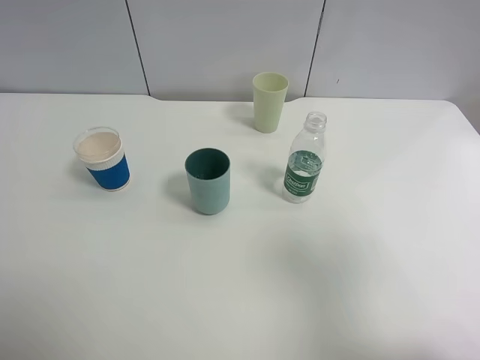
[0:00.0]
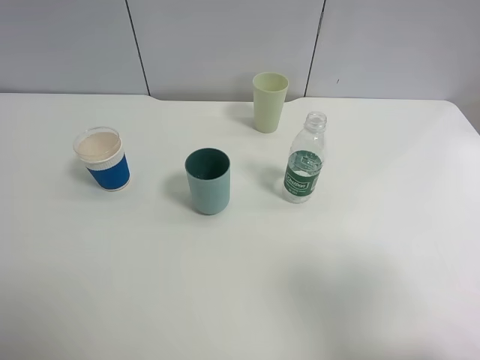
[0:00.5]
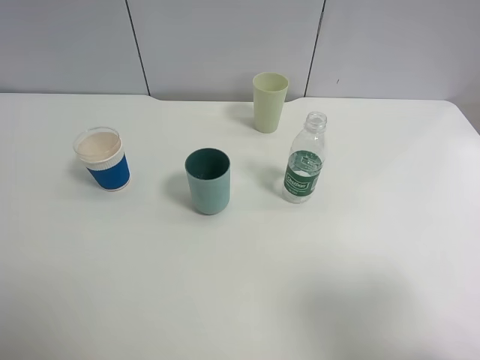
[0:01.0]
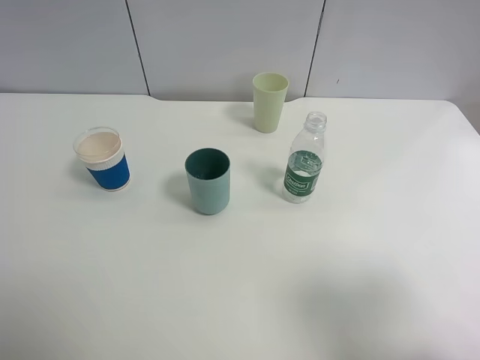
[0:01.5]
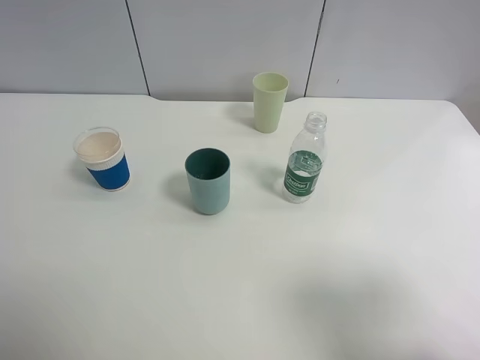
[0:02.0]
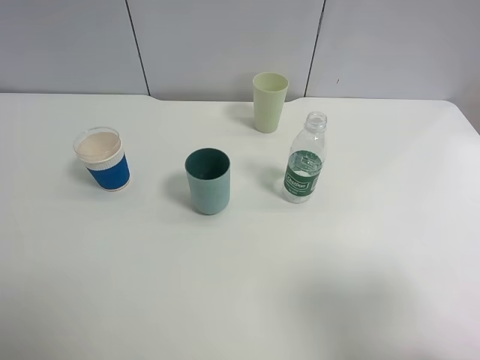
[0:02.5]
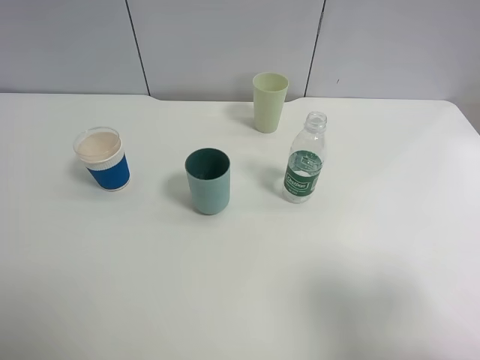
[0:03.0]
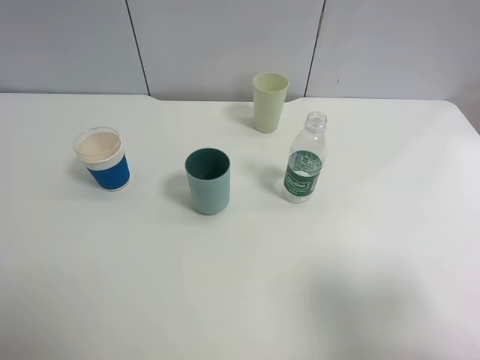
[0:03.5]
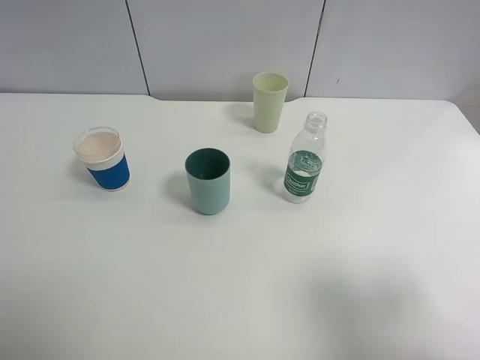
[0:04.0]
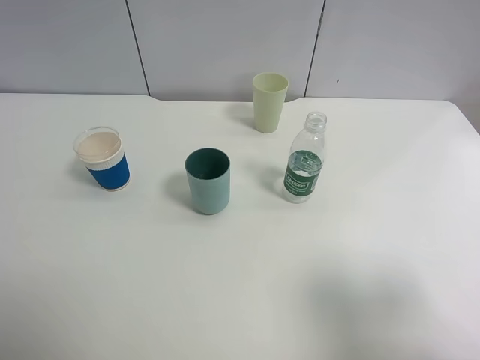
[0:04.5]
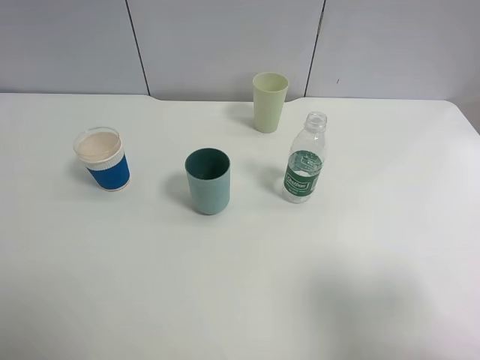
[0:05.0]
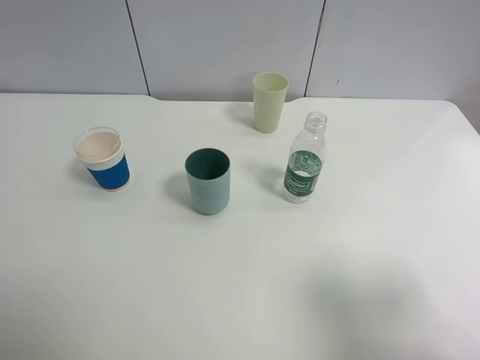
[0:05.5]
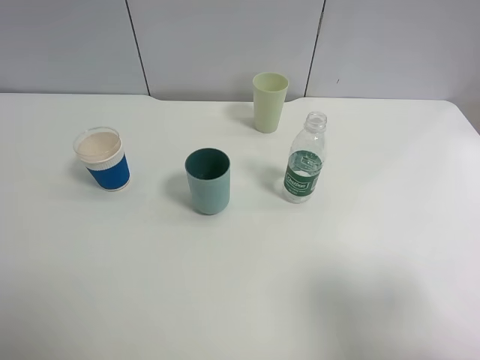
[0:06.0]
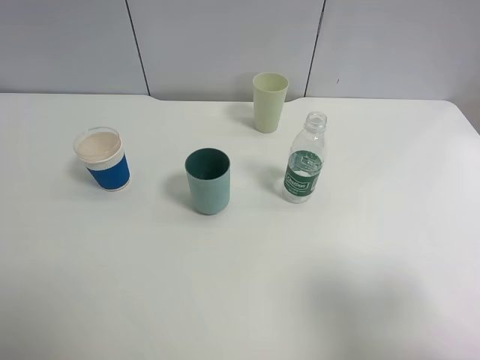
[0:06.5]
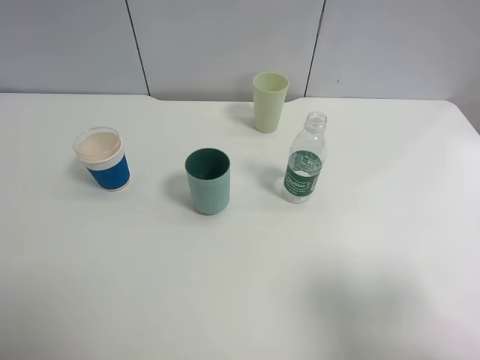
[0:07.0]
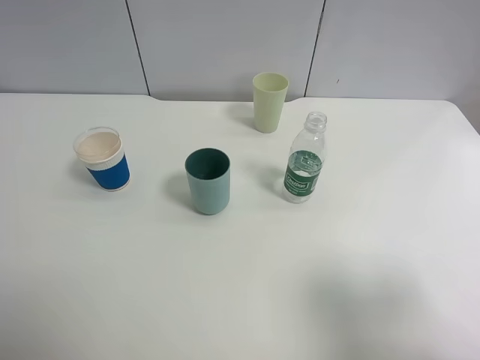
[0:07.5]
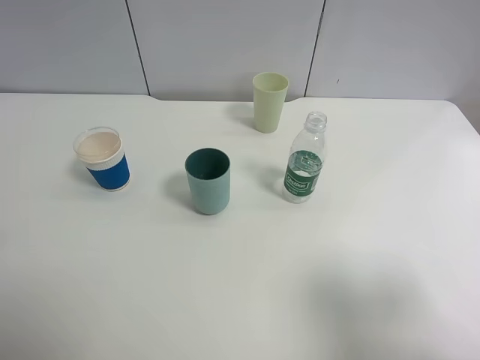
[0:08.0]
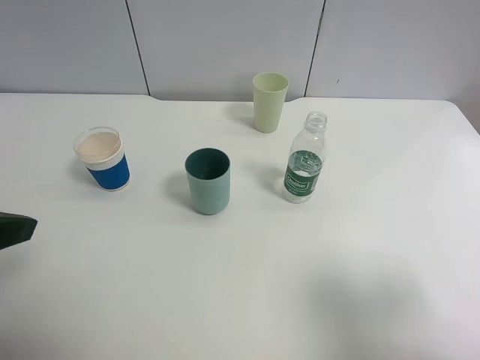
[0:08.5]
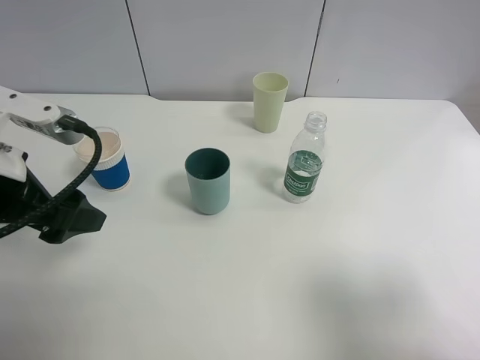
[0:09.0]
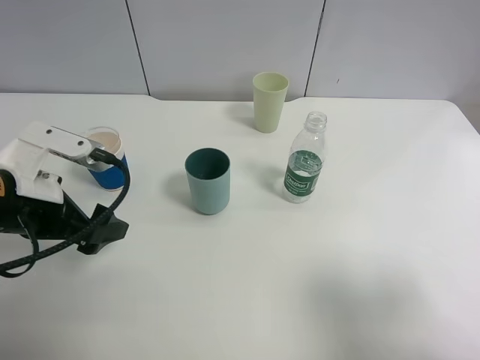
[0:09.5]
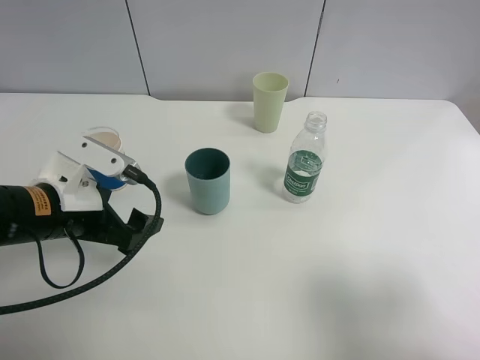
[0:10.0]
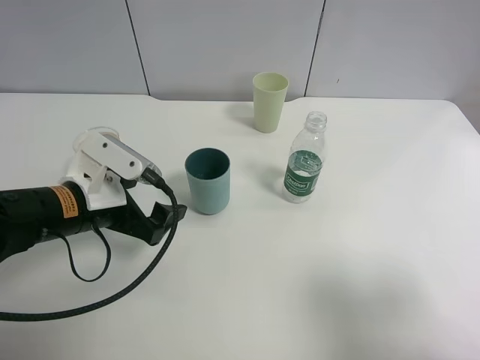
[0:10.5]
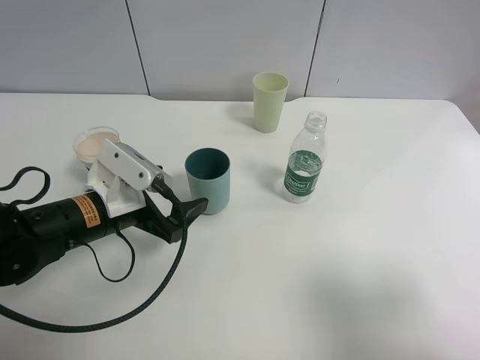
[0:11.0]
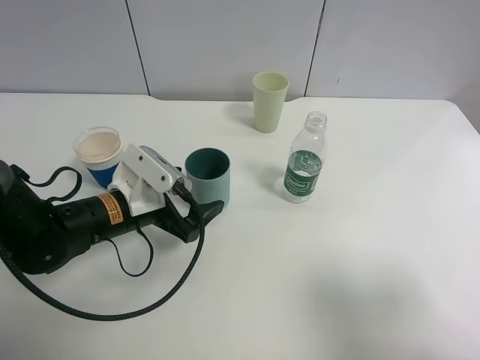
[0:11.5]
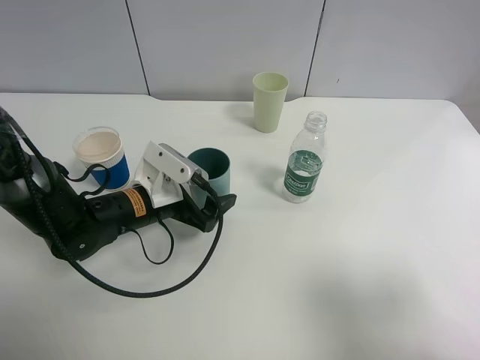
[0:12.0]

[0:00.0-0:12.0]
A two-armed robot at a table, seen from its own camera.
Task of the whole recording: use a clamp to hold the bottle of the drink, pour the beverage into a random cup, then clamp the cup containing the drink and pour the drink into another random cup.
0.0 to 2.0 s: The grippers move only a little.
4.0 to 6.0 s: Both grippers stay put.
8.0 to 10.0 s: The left gripper moves downward, forward and to the right, approximately 20 cm.
10.0 to 12.0 s: The left gripper shifts approximately 15 cm downward, forward and to the right.

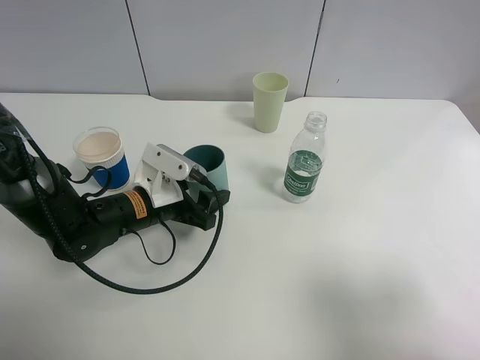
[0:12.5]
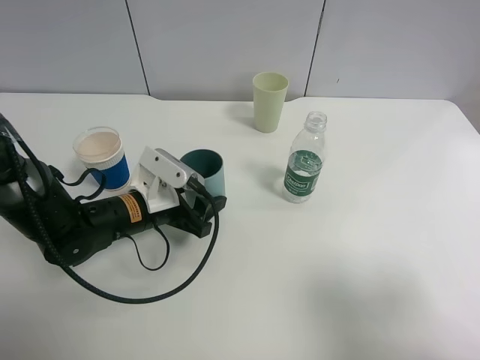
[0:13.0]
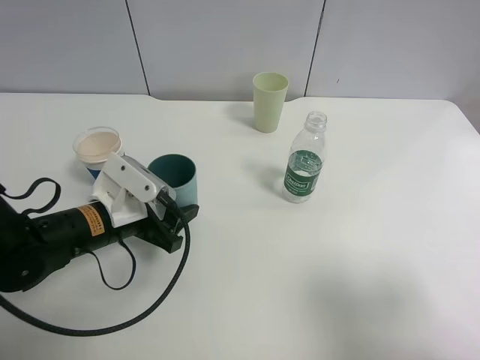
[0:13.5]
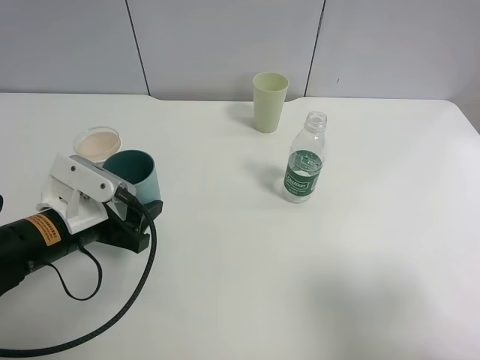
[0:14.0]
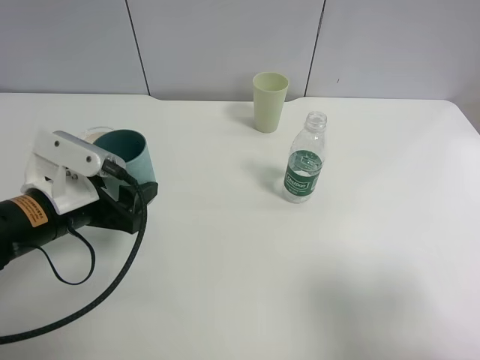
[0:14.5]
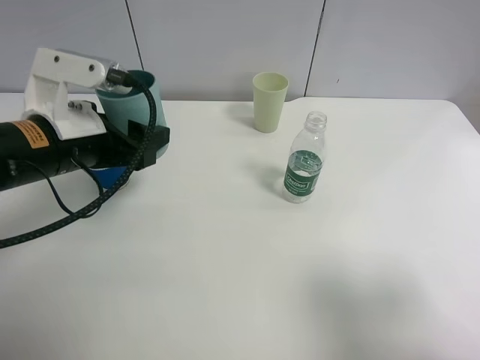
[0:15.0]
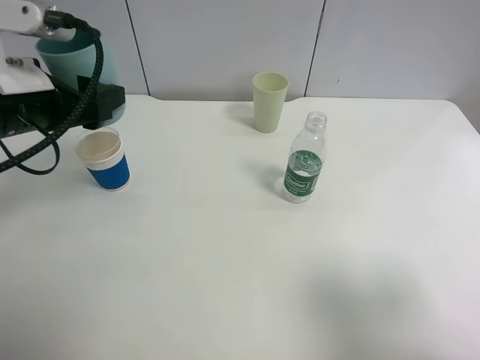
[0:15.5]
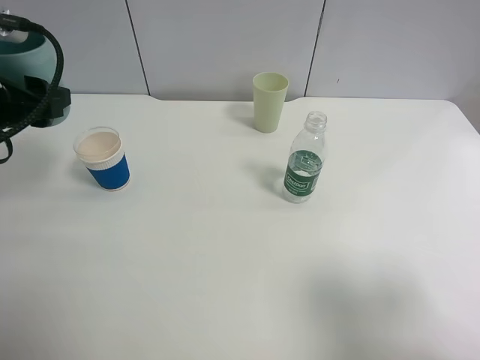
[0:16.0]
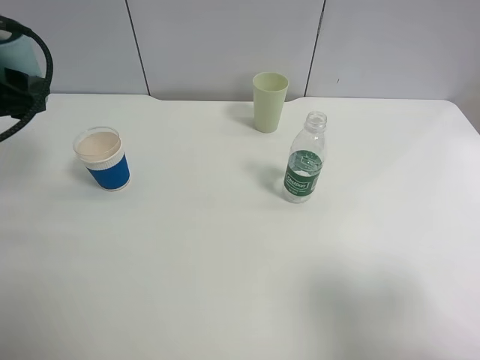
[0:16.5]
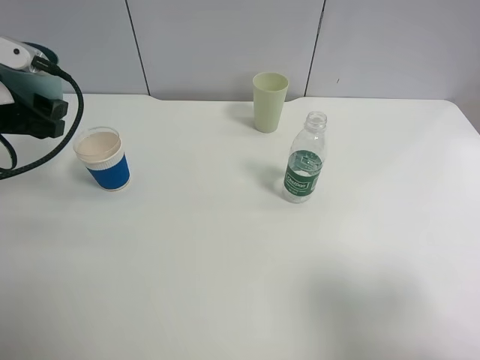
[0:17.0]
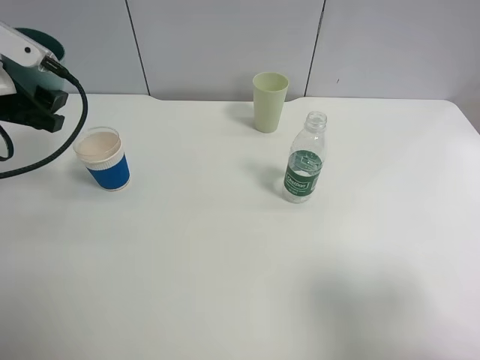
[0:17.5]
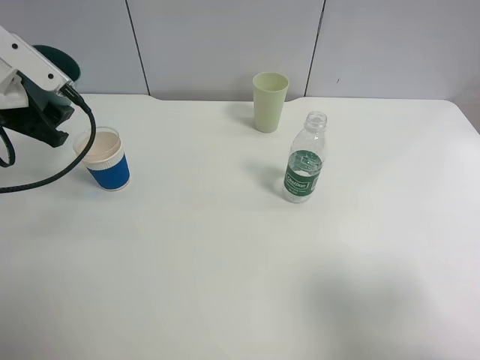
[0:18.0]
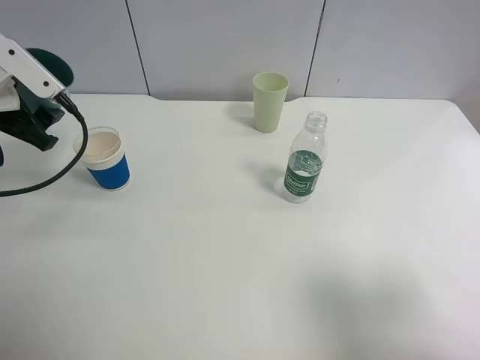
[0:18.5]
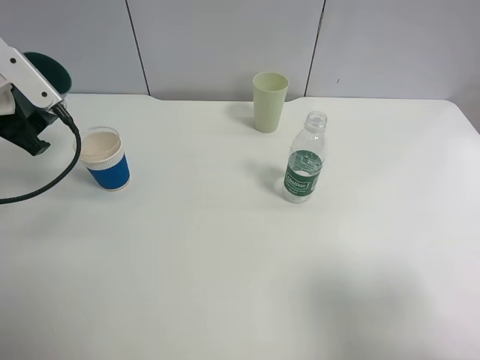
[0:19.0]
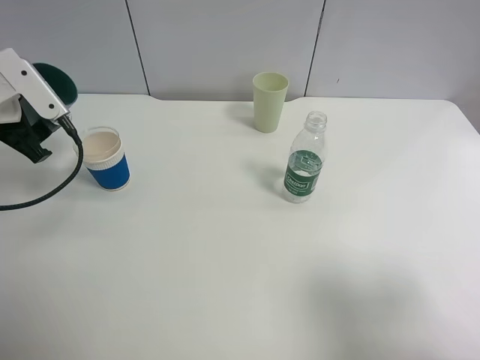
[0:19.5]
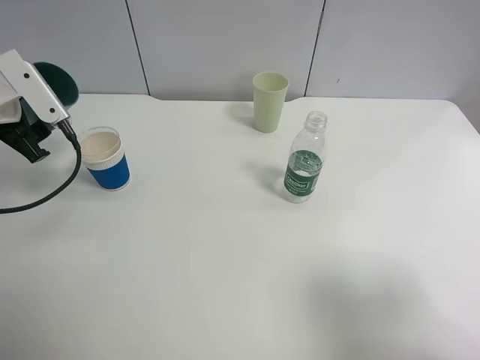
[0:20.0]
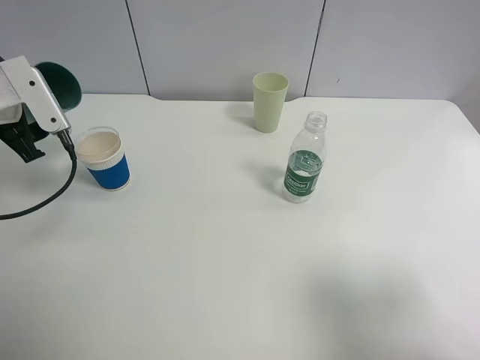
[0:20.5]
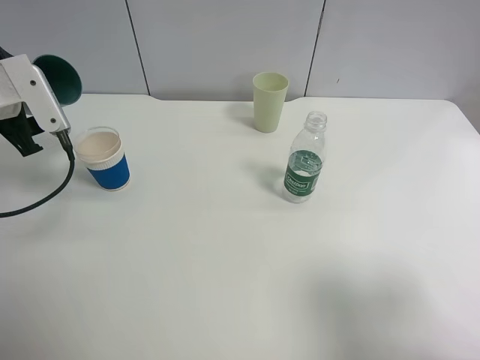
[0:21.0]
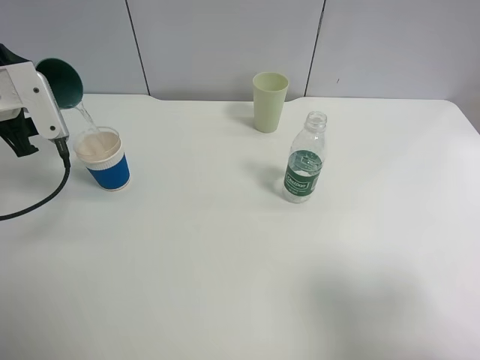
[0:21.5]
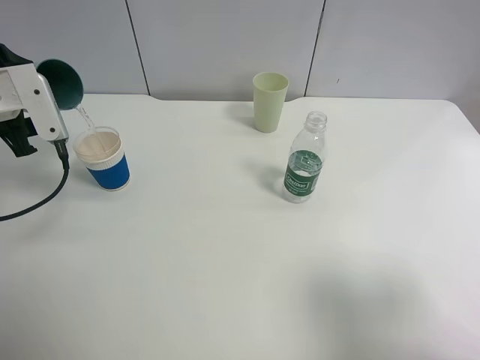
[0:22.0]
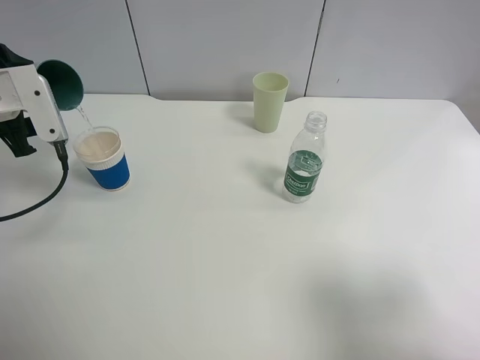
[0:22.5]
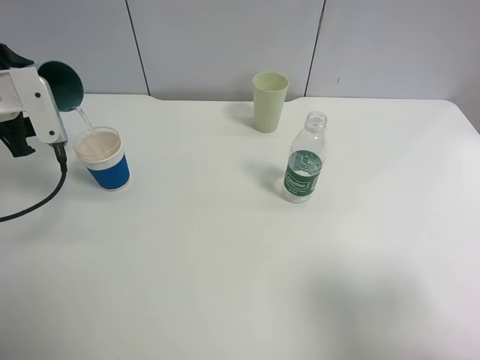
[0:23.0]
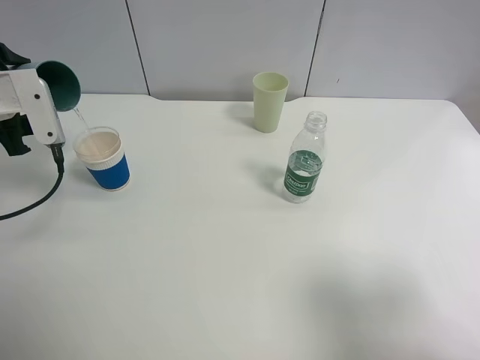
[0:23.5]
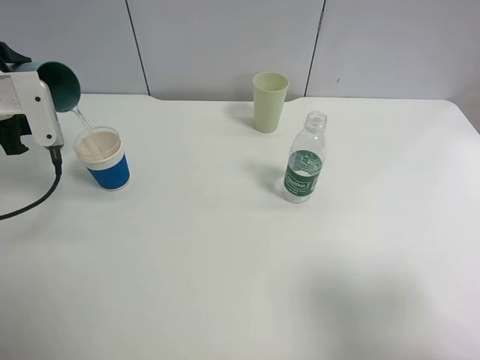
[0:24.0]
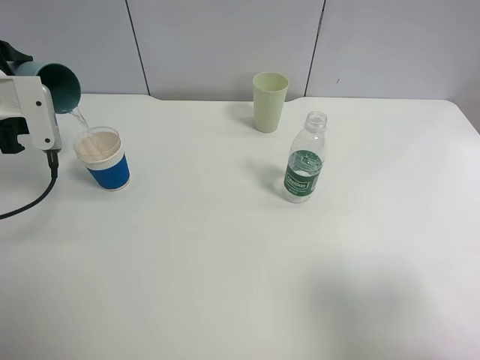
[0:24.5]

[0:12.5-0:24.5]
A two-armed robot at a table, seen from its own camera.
Task of the whole recording: use a clamp to hold the bottle of the drink, pour the beverage into a random cup, then clamp the cup containing the drink and pour the drink into another random cup.
12.5 to 14.5 s: The left gripper shifts approximately 15 cm upward, to the left and backward.
14.5 to 16.5 s: The left gripper travels upward, to the left and forward by some 15 cm.
16.5 to 18.5 s: The left gripper shifts by approximately 5 cm.
20.5 to 22.5 s: The grippers stay close to where they were, moving slightly.
22.5 to 24.5 s: There are only small adjustments of the grippers.

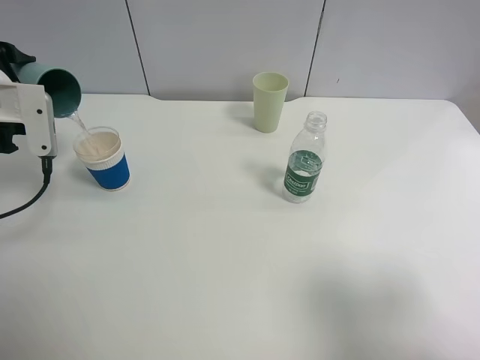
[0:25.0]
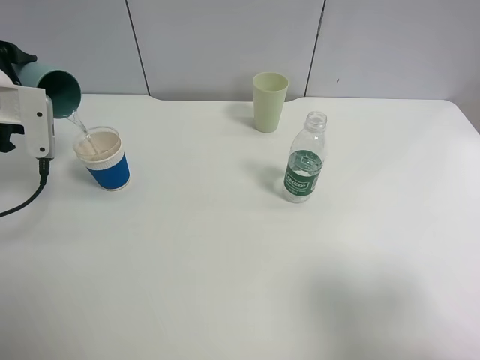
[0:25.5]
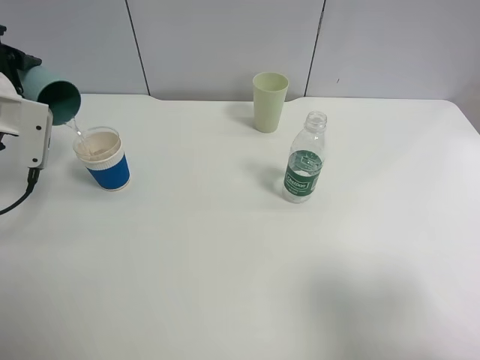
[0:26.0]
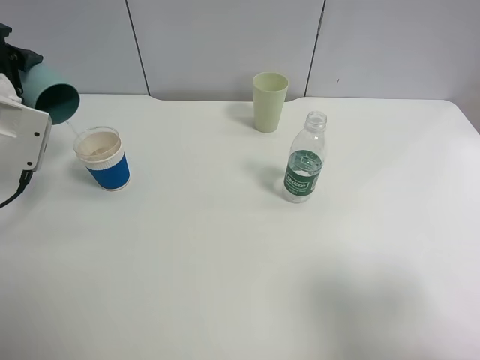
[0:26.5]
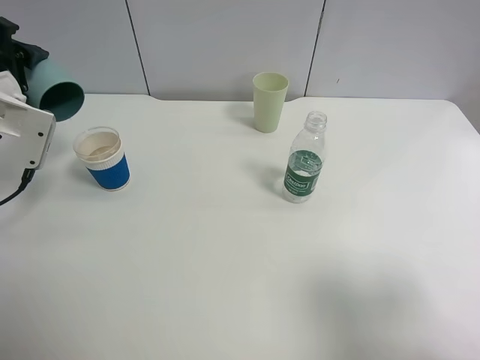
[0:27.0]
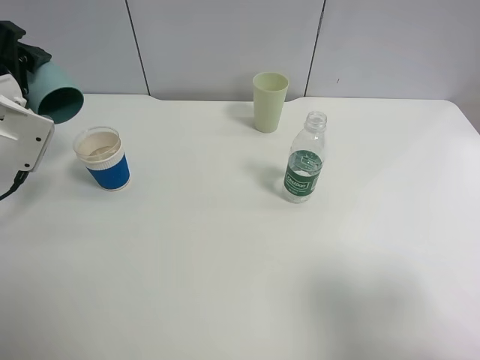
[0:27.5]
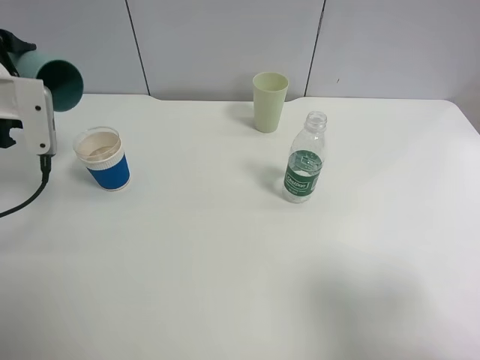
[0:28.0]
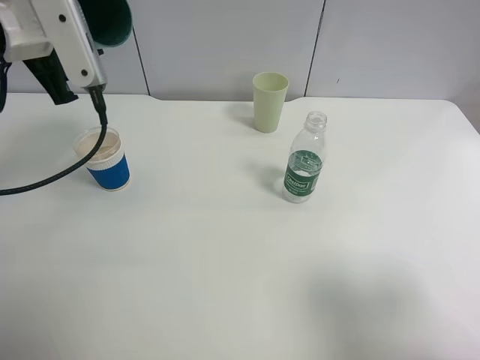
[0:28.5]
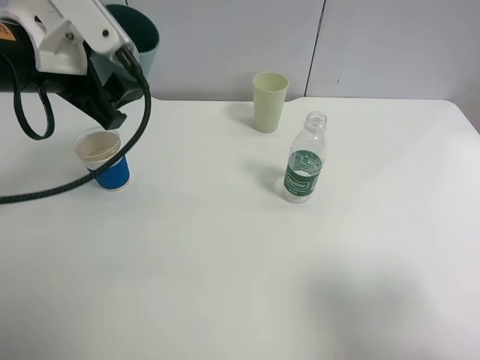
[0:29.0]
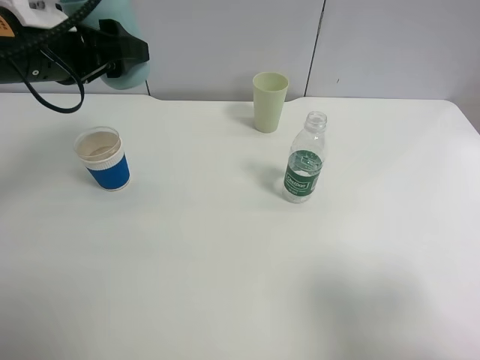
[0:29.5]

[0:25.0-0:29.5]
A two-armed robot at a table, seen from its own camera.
Task of the whole recording: use a clamp to hold the bottle of the drink, pour the beverage into a random cup, then clamp the cup containing the drink and pour the drink into another random cup.
Step, 25.0 to 28.0 s: Pour water into the paper cup with left gripper.
27.0 to 29.5 s: The left gripper heads to the right and upward, covering roughly 15 cm.
